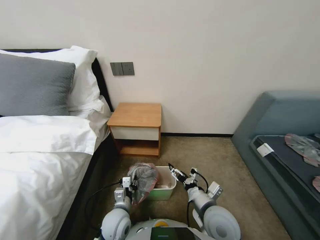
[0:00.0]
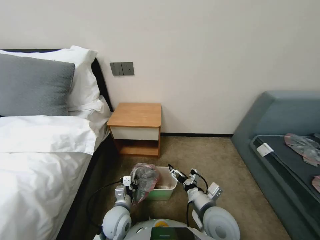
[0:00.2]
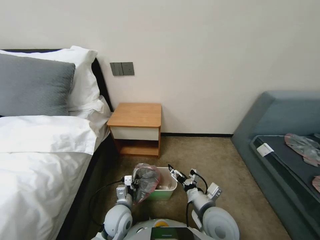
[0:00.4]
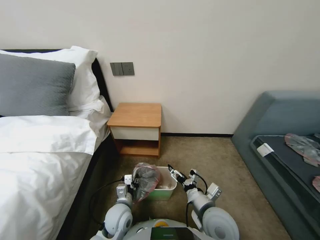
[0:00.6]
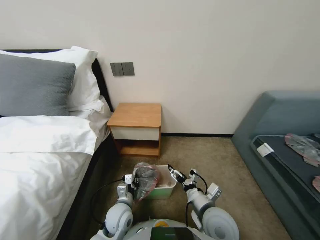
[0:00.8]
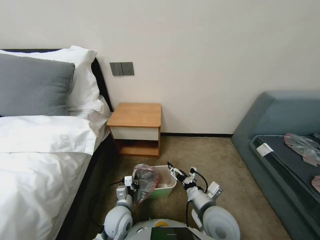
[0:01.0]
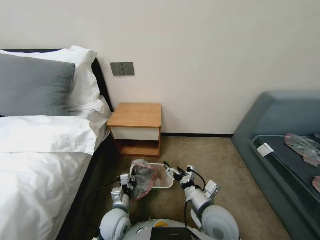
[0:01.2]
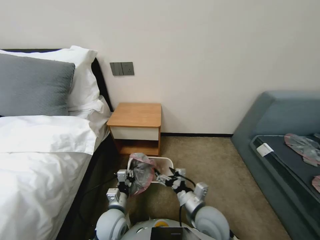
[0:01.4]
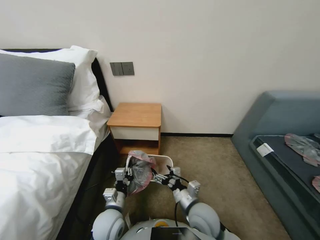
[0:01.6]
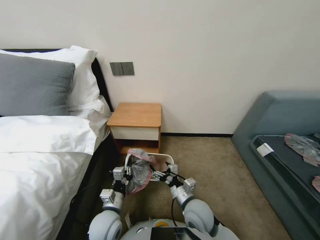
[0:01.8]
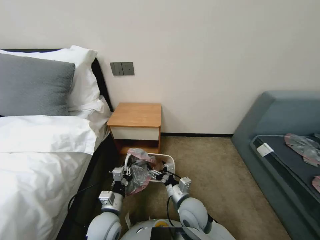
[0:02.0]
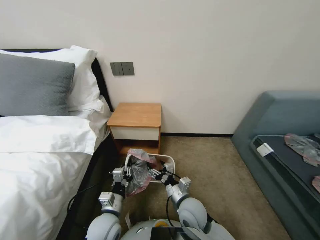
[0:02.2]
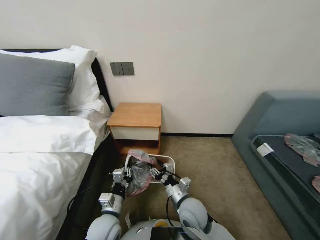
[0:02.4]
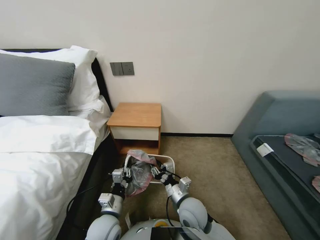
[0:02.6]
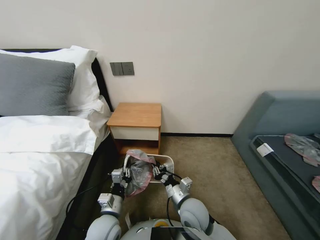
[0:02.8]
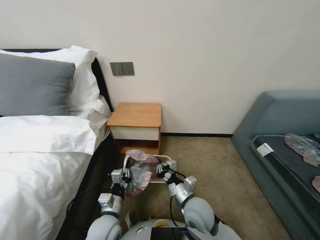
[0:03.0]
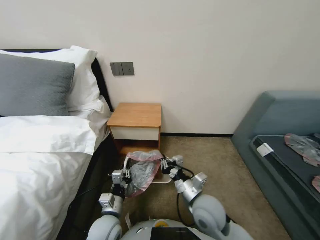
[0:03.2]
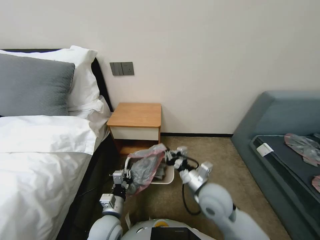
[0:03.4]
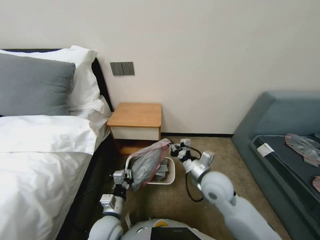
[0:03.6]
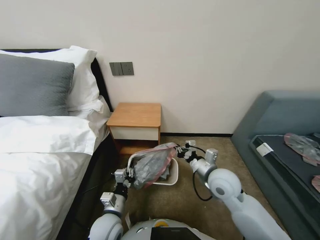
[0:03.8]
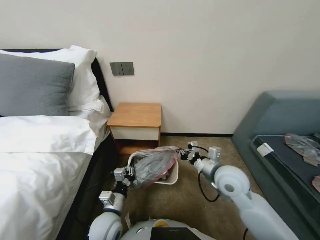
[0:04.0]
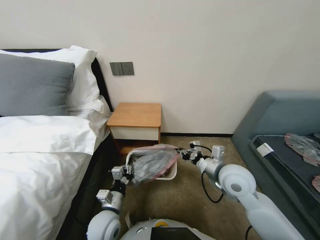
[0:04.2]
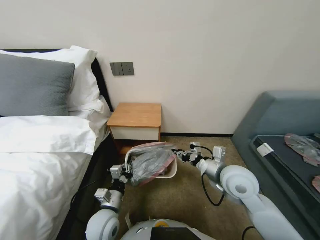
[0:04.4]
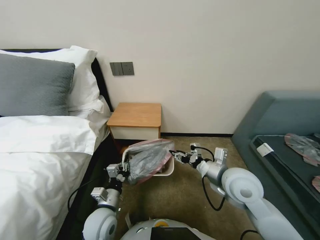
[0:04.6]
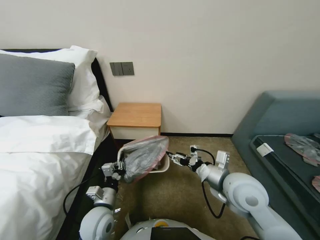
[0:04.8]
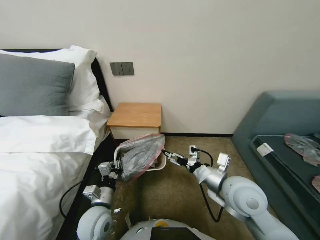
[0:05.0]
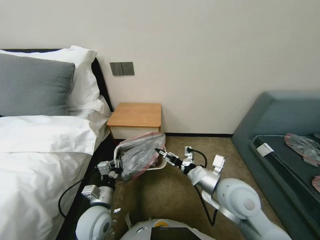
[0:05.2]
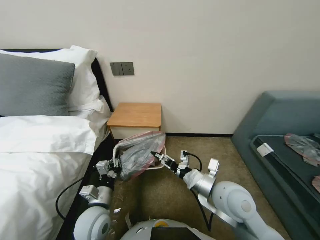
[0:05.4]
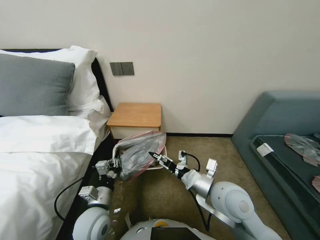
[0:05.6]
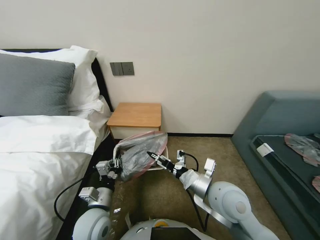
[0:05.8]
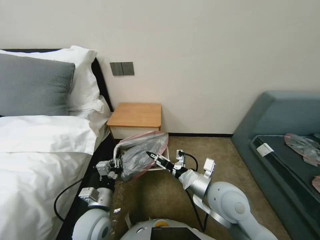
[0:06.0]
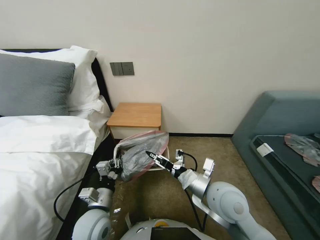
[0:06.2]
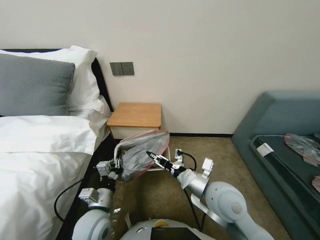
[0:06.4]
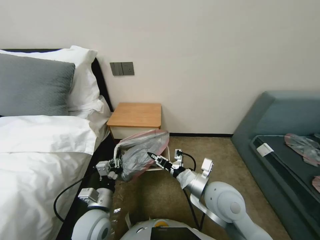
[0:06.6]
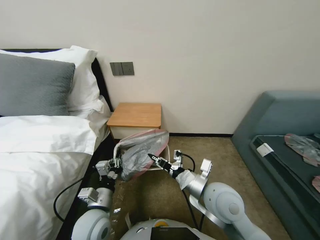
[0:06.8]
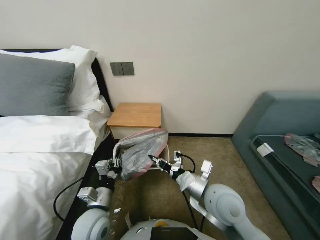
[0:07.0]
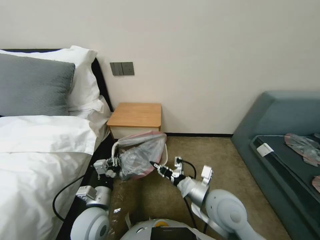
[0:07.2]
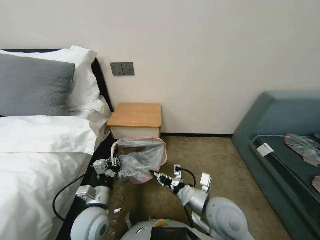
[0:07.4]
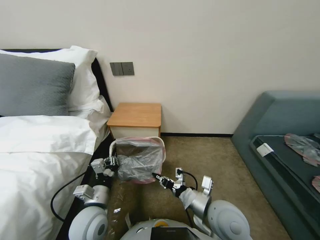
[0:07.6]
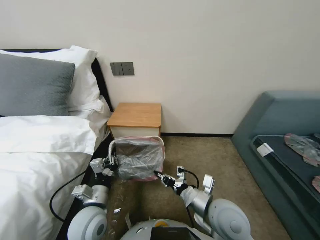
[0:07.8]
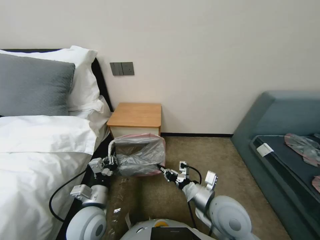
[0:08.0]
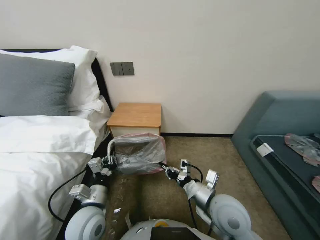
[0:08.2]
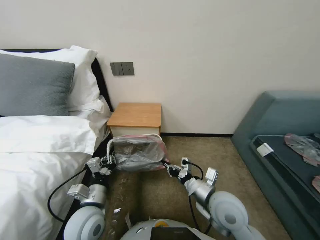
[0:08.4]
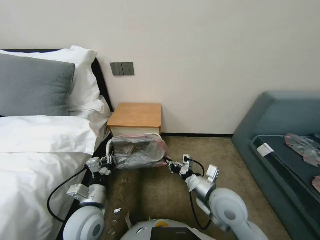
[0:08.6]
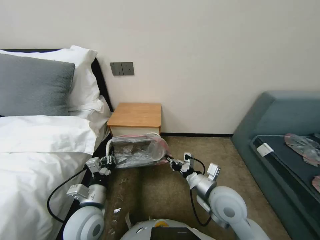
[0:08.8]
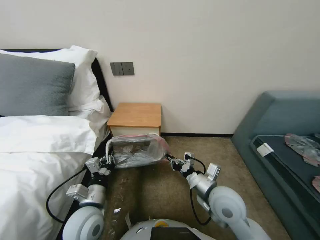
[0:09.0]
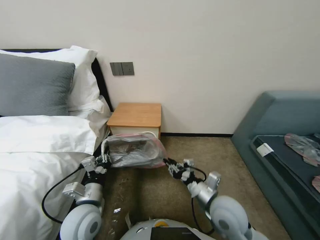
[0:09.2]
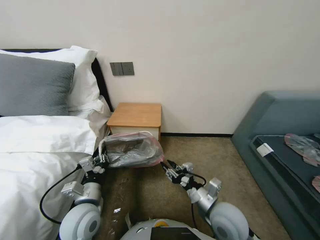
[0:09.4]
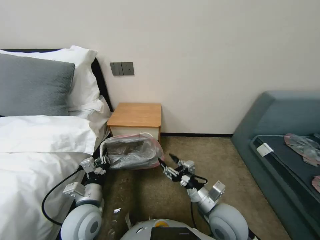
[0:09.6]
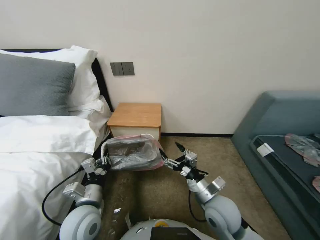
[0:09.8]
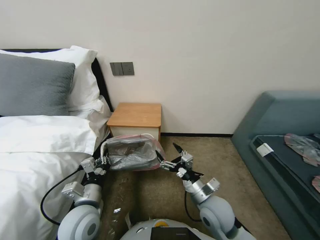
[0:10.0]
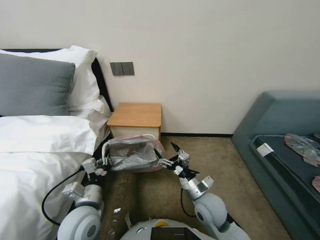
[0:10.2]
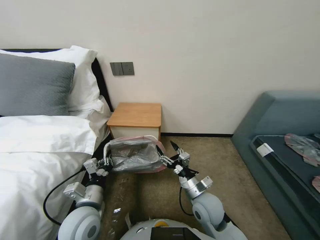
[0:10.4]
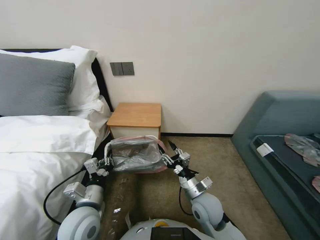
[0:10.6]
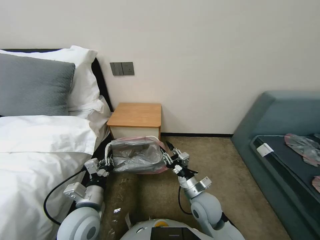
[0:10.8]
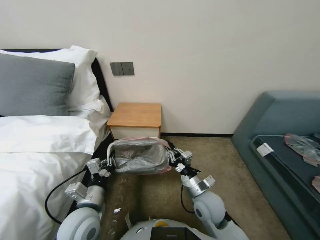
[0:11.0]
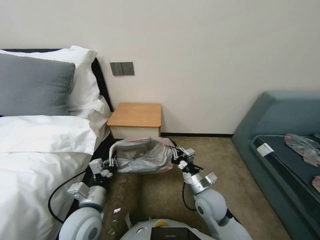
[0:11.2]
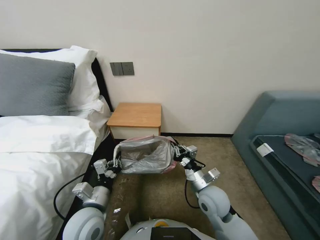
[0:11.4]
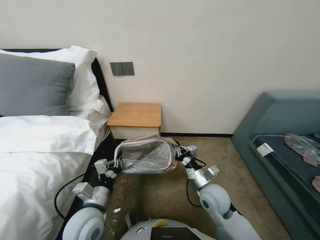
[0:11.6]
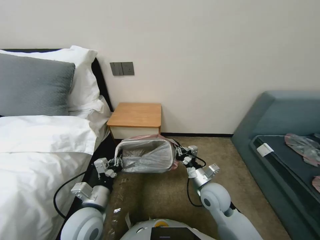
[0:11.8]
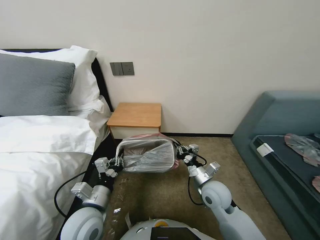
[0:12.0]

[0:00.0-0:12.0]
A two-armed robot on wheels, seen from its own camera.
Task of the whole recording: Pick up the garbage bag from the table and place it over the trash can.
0:01.6 to 0:03.0: The right gripper closes its fingers.
0:03.0 to 0:04.4: The right gripper heads to the right, upward and forward, covering about 20 cm.
0:04.4 to 0:06.0: The right gripper goes roughly 10 cm to the left and backward, and opens up.
0:06.0 to 0:07.6: The right gripper changes place by about 5 cm, and closes its fingers.
0:09.0 to 0:10.4: The right gripper goes roughly 5 cm downward, and opens up.
0:10.4 to 0:12.0: The right gripper moves approximately 5 cm, and closes.

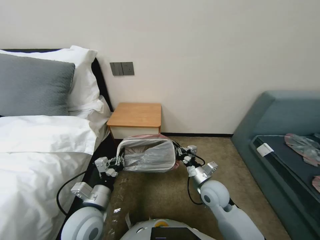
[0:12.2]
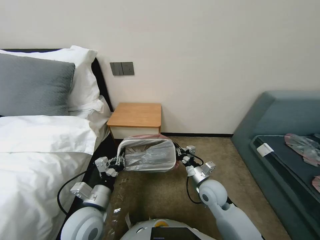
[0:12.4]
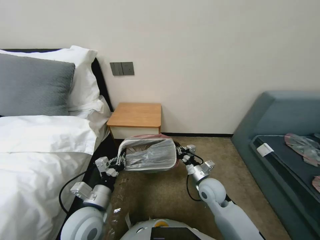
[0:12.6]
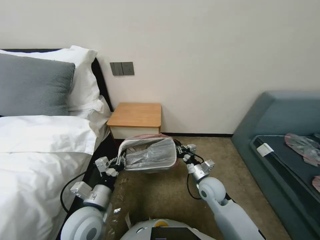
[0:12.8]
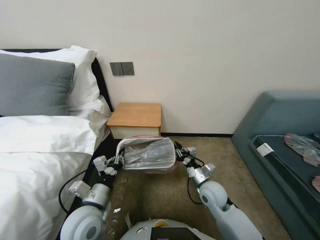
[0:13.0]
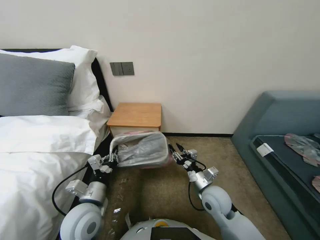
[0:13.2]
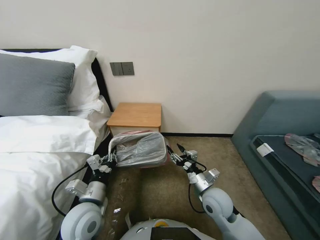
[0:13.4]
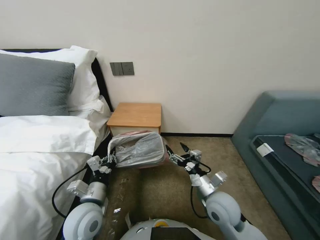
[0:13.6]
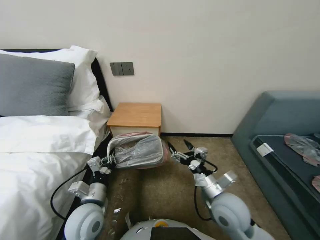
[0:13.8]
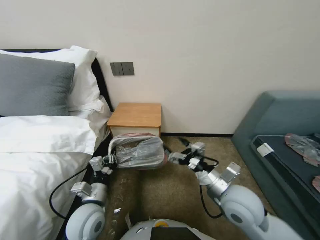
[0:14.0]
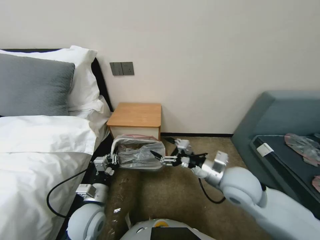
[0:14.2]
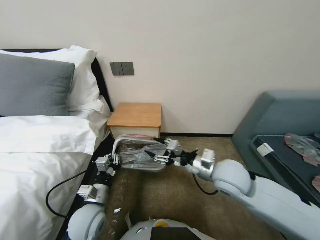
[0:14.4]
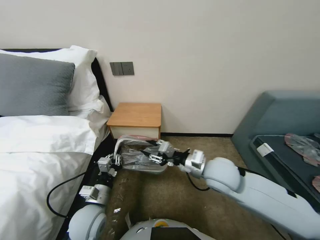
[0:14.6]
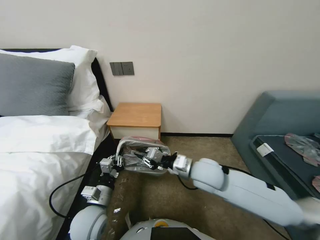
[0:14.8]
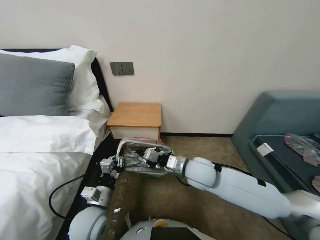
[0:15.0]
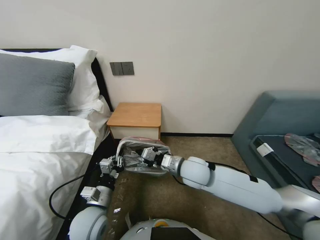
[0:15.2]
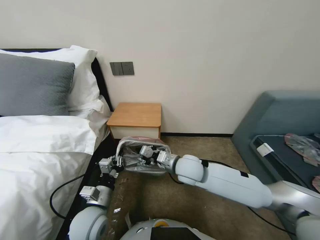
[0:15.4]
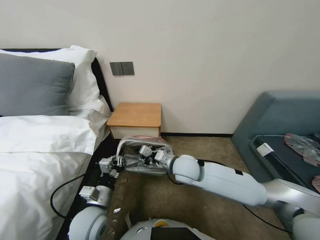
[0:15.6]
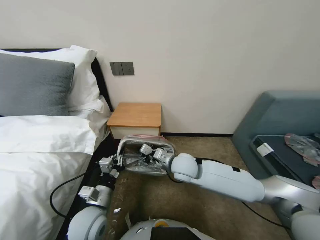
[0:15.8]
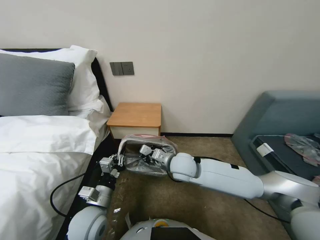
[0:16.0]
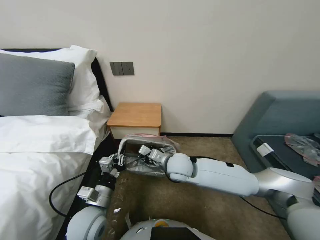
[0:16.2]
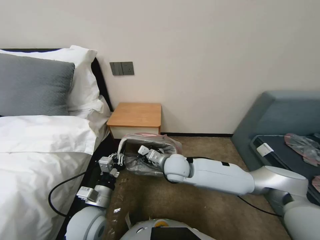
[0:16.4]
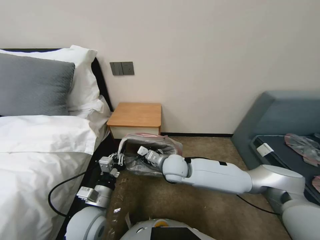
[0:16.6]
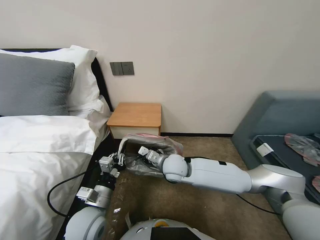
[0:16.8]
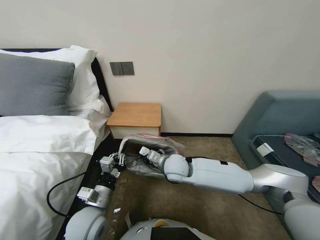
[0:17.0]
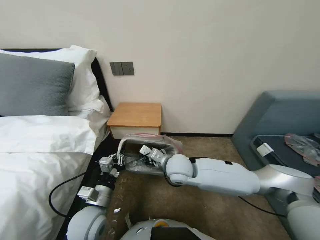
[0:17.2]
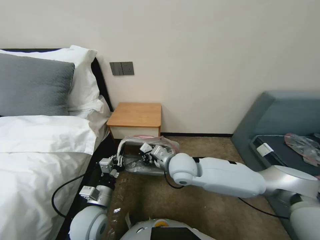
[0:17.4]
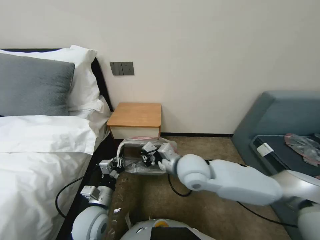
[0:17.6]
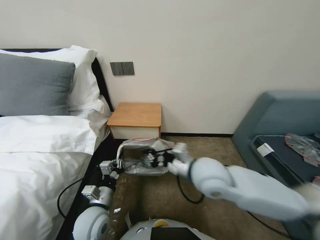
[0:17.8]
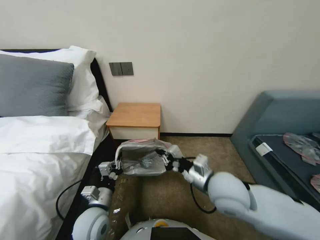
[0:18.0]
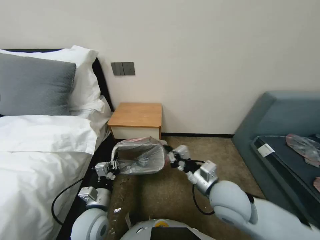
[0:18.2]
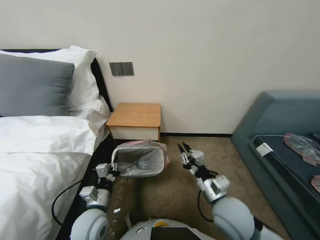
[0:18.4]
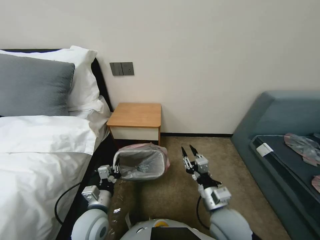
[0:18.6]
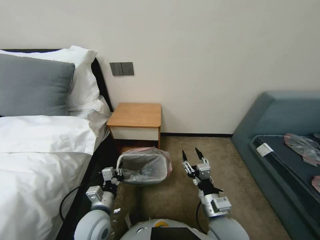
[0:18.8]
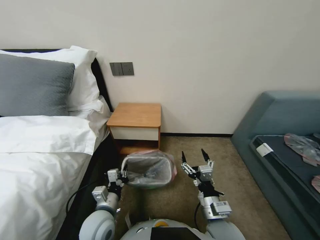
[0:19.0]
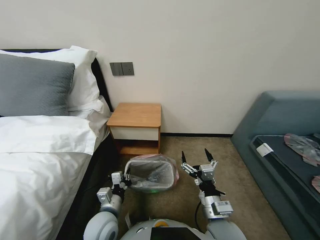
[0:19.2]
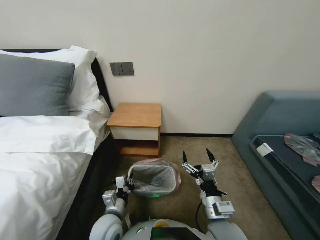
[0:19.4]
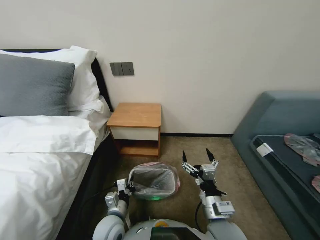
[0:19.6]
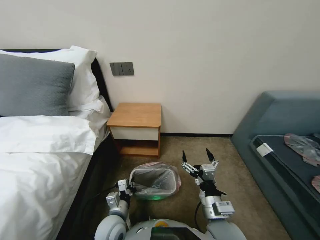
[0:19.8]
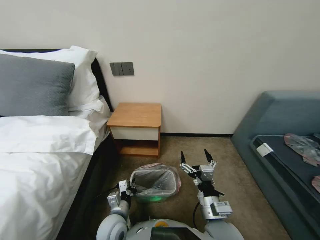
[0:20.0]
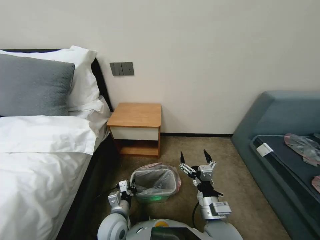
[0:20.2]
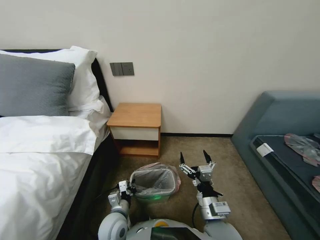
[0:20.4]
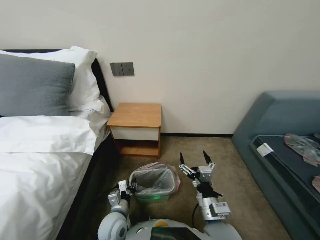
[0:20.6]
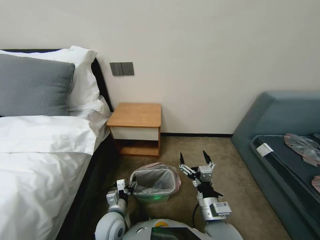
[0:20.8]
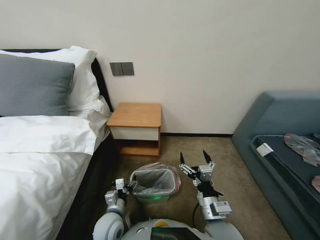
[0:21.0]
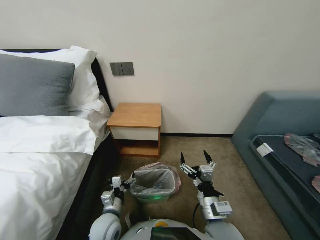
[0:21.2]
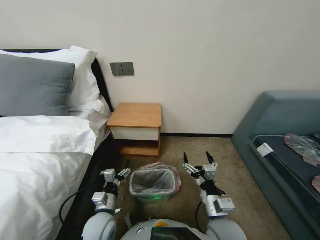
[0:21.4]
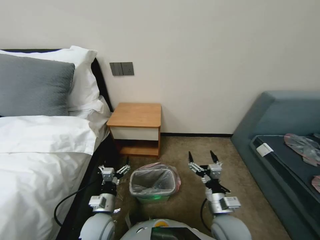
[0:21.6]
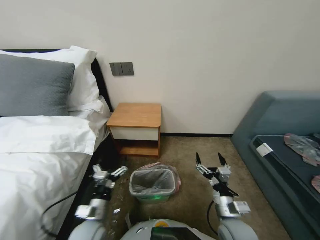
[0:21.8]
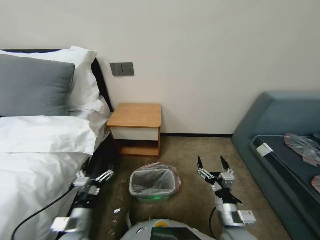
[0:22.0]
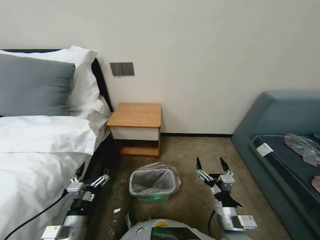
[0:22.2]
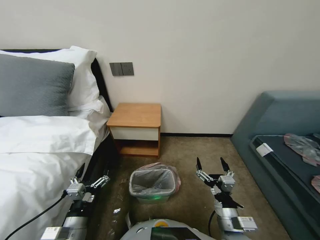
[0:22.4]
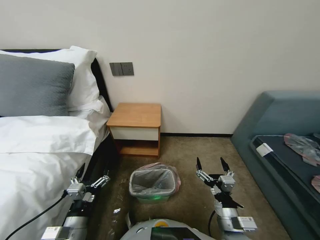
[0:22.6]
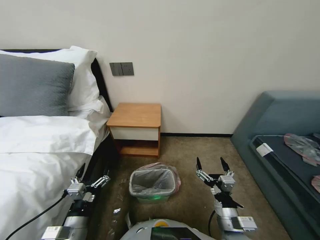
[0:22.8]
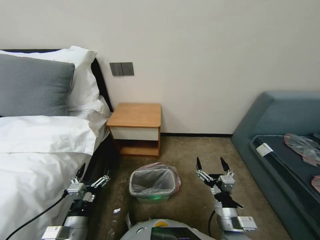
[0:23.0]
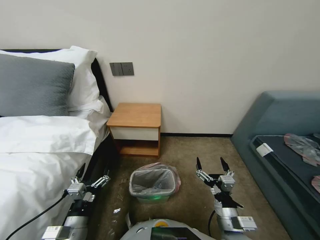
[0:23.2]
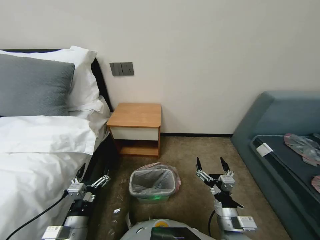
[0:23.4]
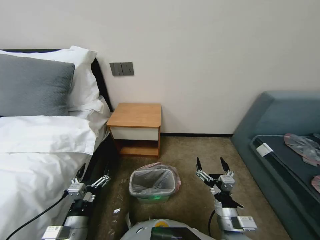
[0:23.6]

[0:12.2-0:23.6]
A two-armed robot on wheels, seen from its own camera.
Task of the whole recording: Pick up the garbage bag from the table and place it over the trash can.
0:12.2 to 0:13.6: The right gripper opens.
0:13.6 to 0:15.0: The right gripper moves upward, forward and to the left, approximately 15 cm, and closes.
0:15.0 to 0:16.4: The right gripper travels to the left by about 5 cm.
0:16.4 to 0:17.8: The right gripper shifts about 10 cm upward, backward and to the right.
0:17.8 to 0:19.4: The right gripper moves backward, downward and to the right, about 20 cm, and opens.
0:19.4 to 0:20.8: The left gripper shifts some 5 cm downward, and opens.
0:20.8 to 0:22.2: The right gripper travels to the right by about 5 cm. The left gripper heads to the left, backward and upward, covering approximately 15 cm, and opens up.
0:22.2 to 0:23.6: Both grippers stay put.
